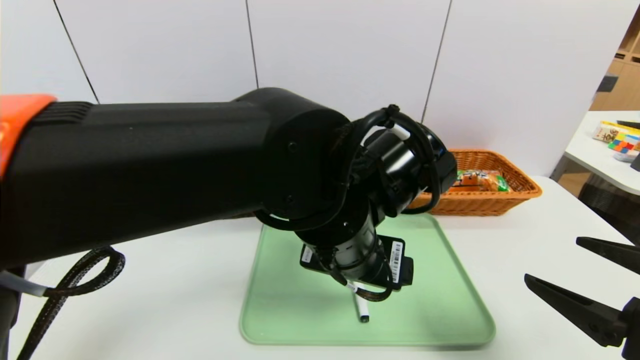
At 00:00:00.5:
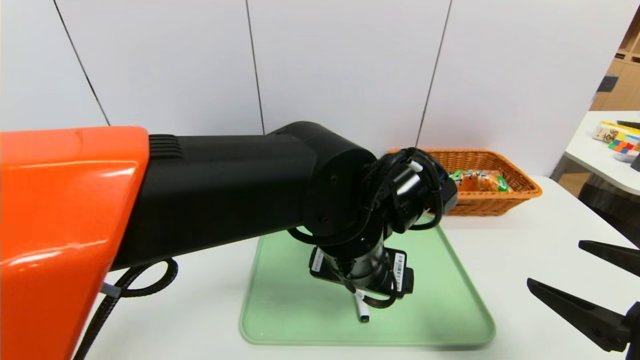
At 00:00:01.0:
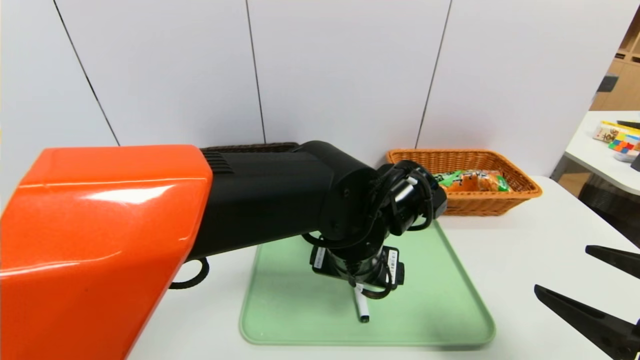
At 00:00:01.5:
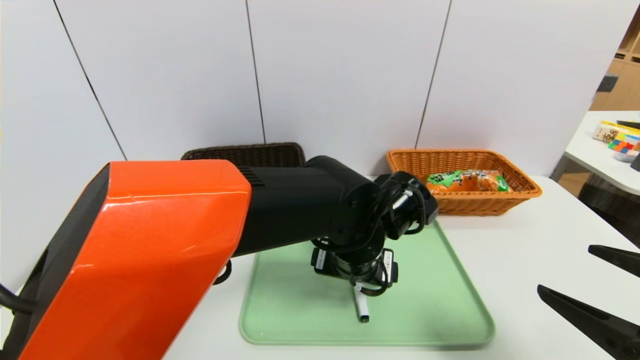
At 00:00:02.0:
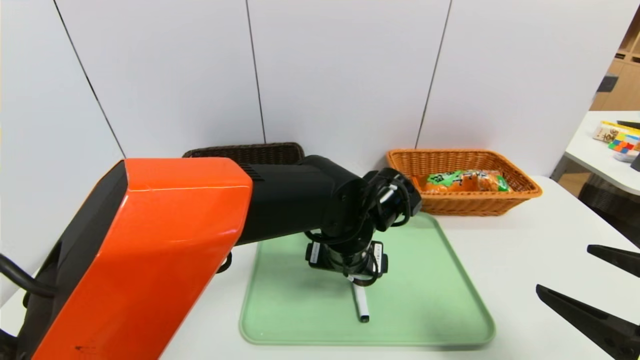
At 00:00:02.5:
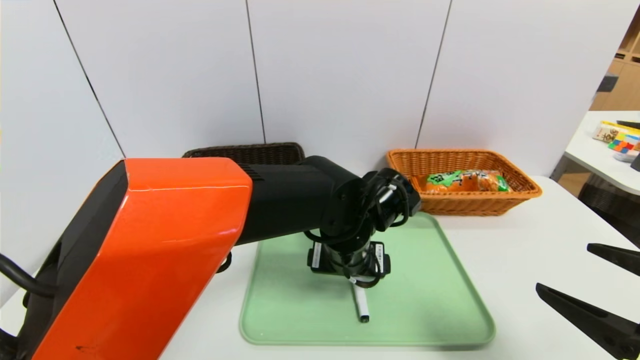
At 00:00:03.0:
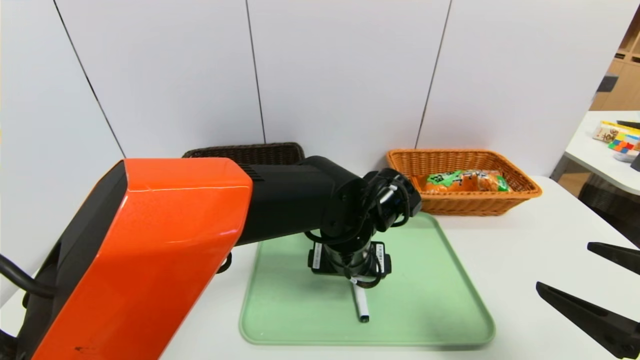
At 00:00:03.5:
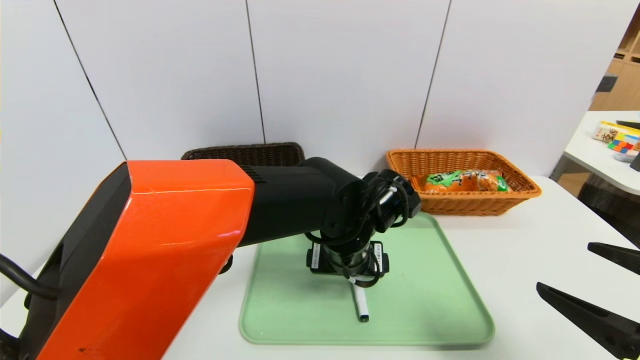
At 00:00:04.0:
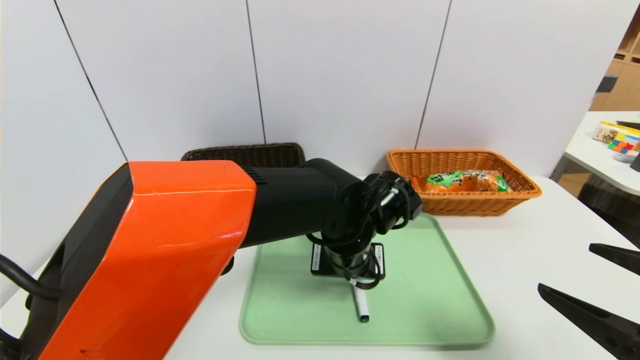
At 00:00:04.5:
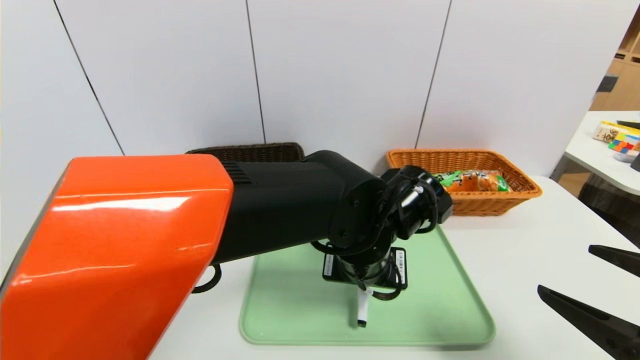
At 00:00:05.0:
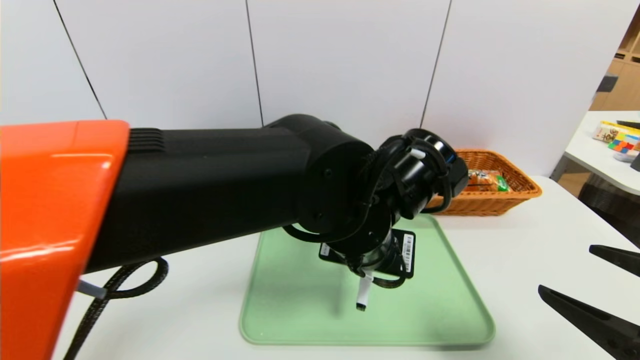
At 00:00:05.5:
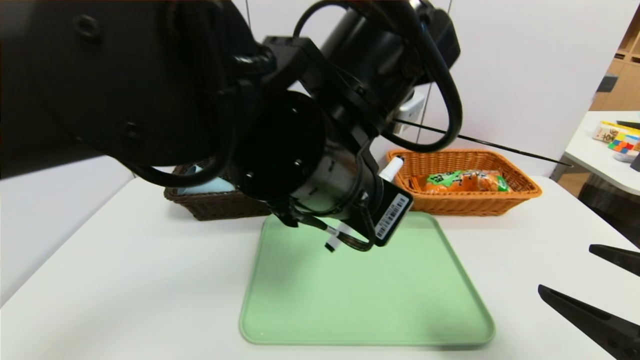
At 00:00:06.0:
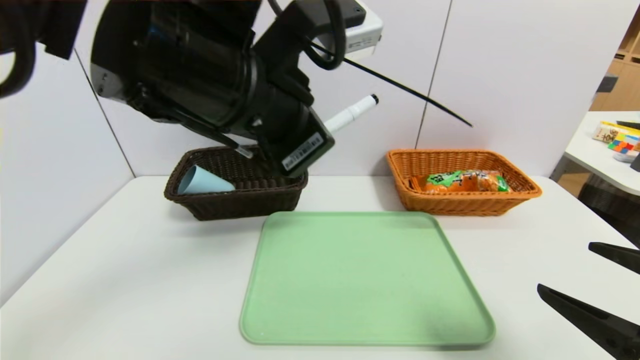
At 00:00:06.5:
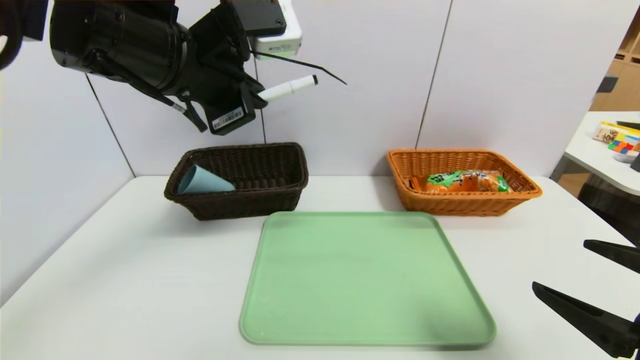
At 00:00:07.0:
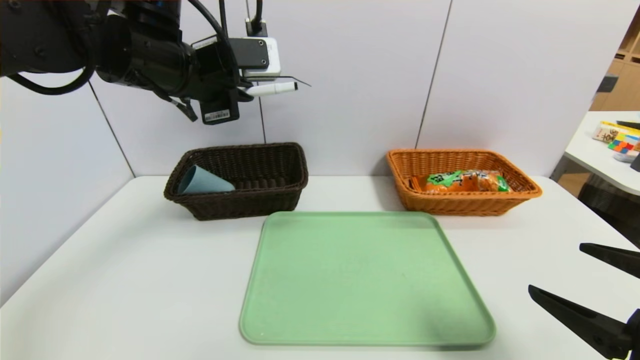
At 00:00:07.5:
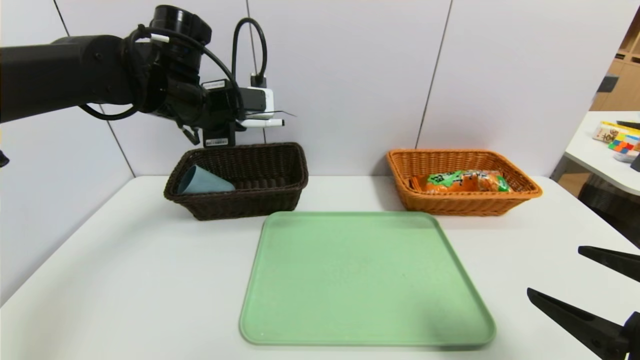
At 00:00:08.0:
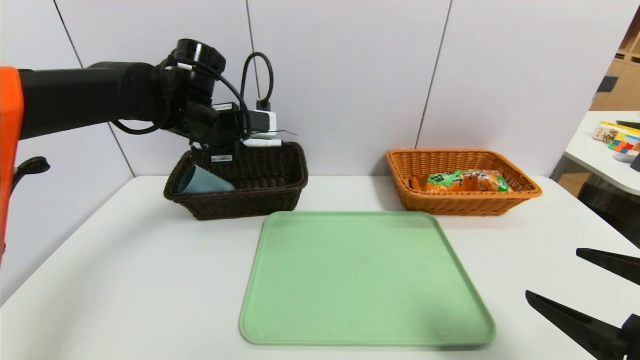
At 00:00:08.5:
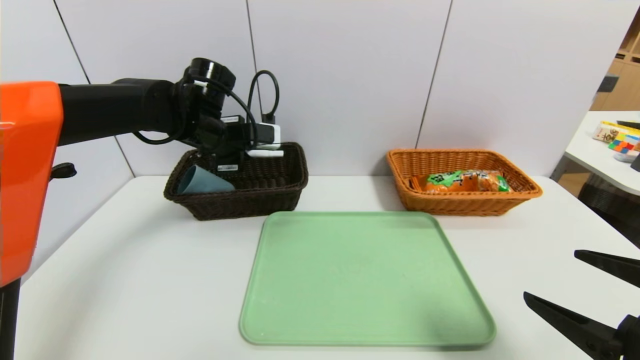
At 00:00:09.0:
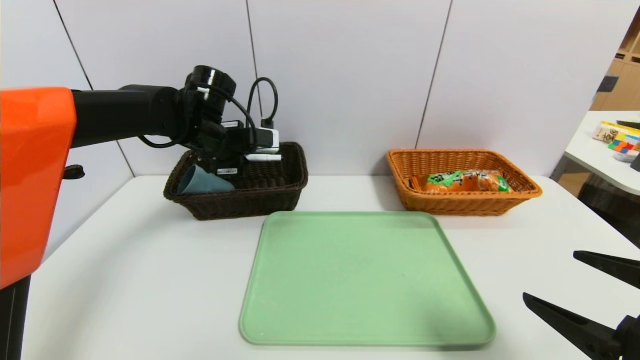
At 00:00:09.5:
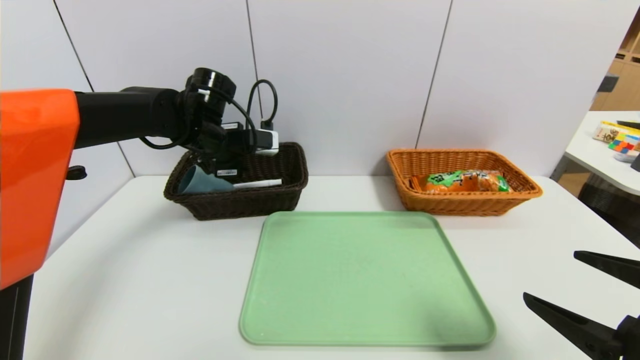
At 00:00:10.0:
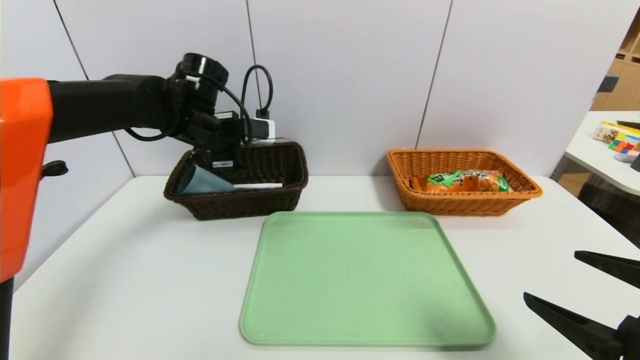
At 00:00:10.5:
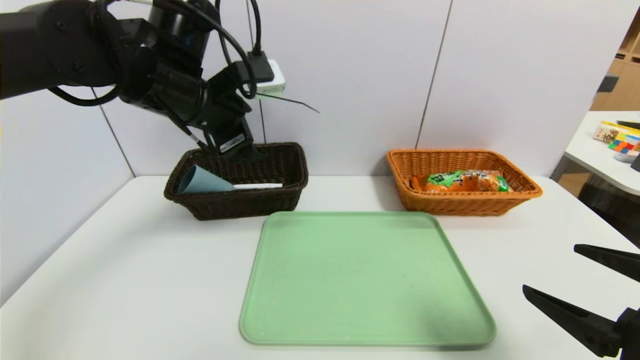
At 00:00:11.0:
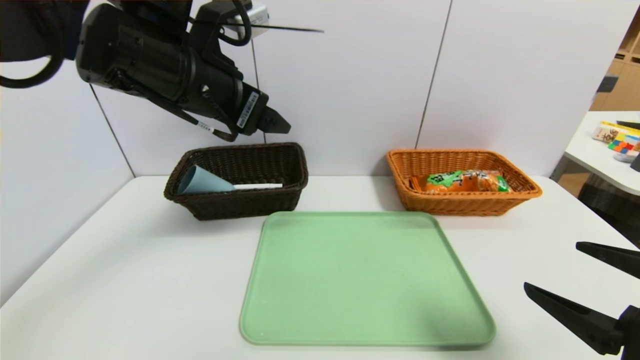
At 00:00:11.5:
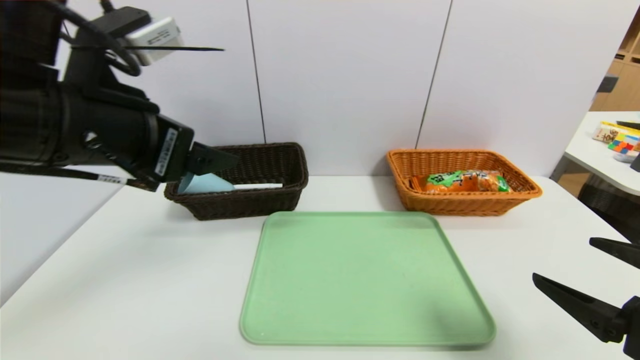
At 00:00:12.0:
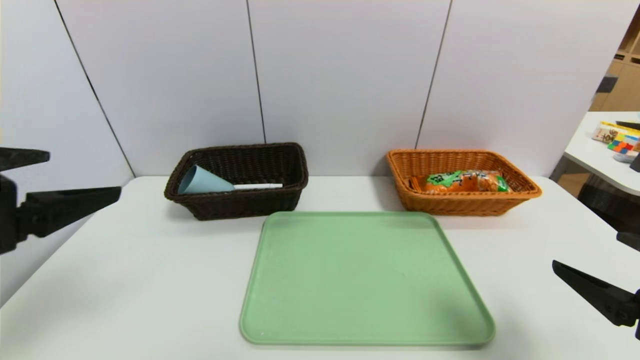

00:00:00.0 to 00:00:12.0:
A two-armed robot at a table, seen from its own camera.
Task of the whole recording: place the food in the right basket with the right gripper, and place the non food items in the left basket with the left gripper.
Step, 00:00:00.0 to 00:00:09.5: Grasp the black marker and put it in the left basket.
00:00:00.0 to 00:00:02.0: The left gripper moves downward and forward, some 10 cm.
00:00:02.0 to 00:00:04.0: The left gripper closes its fingers.
00:00:04.0 to 00:00:06.0: The left gripper goes some 25 cm upward and to the left, and closes.
00:00:06.0 to 00:00:08.0: The left gripper moves forward, to the left and downward, approximately 25 cm.
00:00:08.0 to 00:00:10.0: The left gripper opens its fingers.
00:00:10.0 to 00:00:12.0: The left gripper goes roughly 30 cm backward.

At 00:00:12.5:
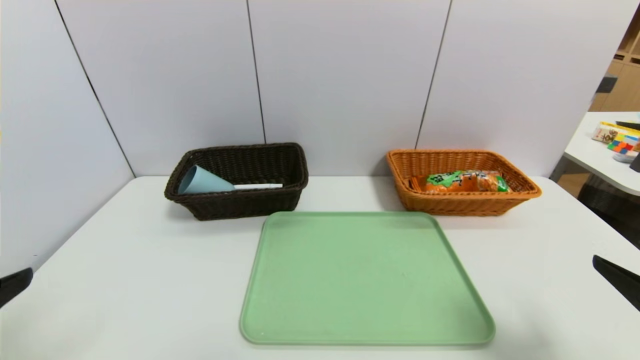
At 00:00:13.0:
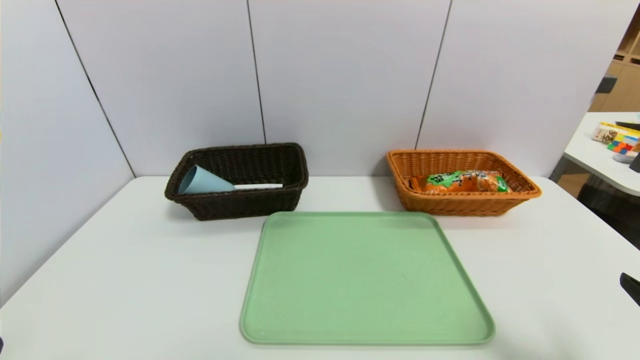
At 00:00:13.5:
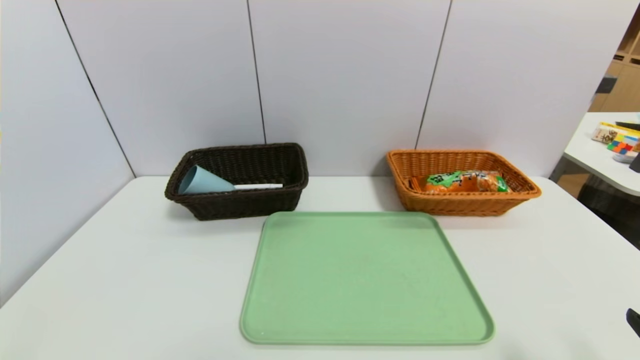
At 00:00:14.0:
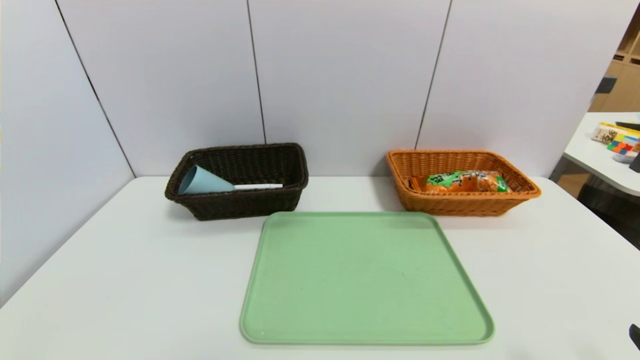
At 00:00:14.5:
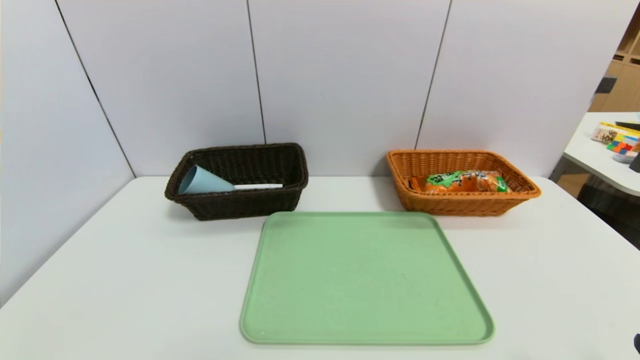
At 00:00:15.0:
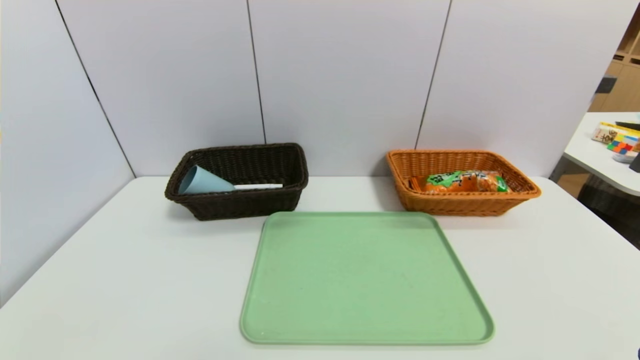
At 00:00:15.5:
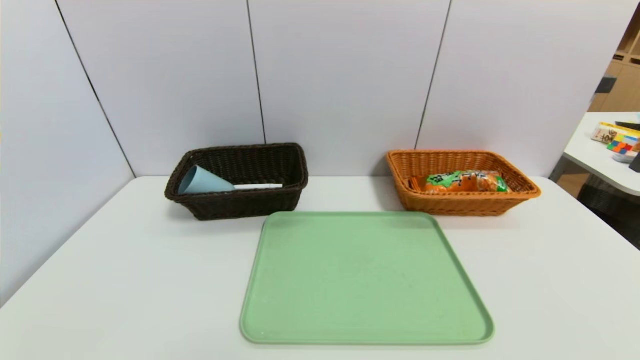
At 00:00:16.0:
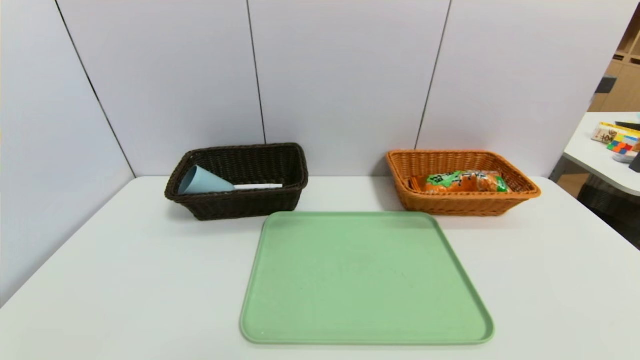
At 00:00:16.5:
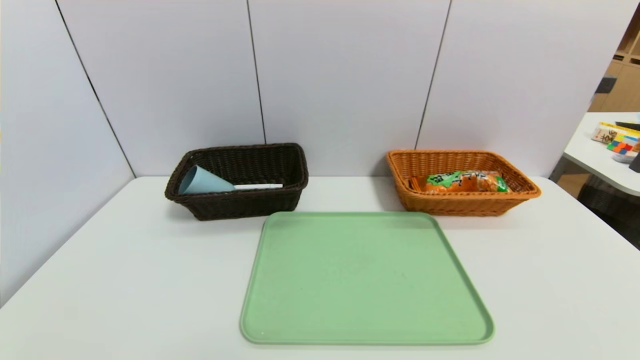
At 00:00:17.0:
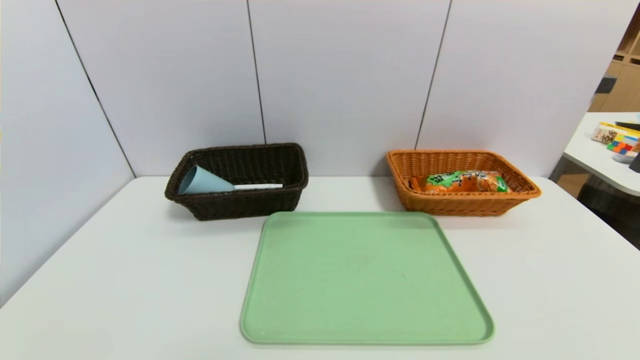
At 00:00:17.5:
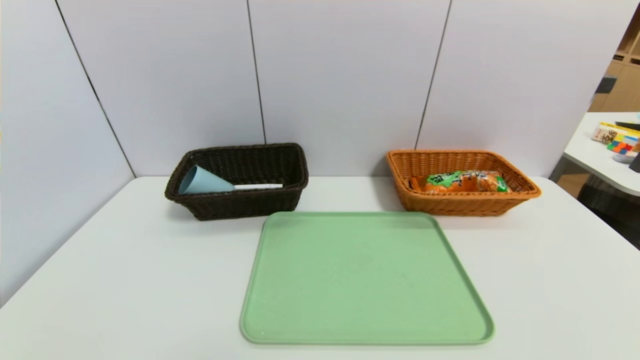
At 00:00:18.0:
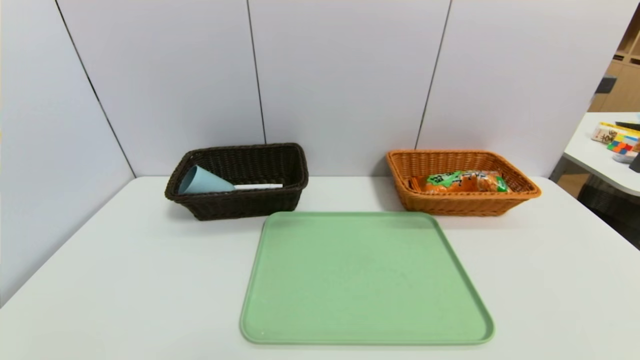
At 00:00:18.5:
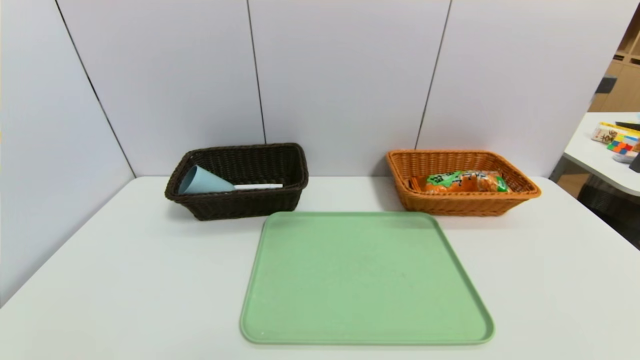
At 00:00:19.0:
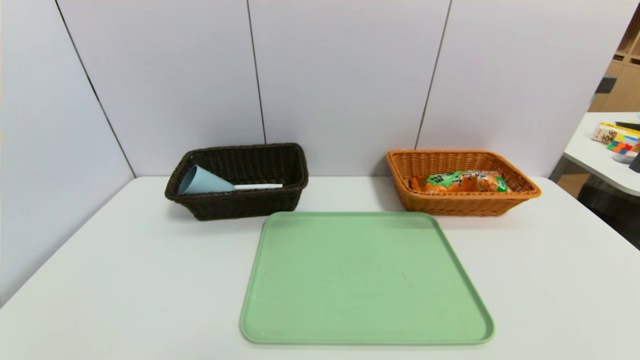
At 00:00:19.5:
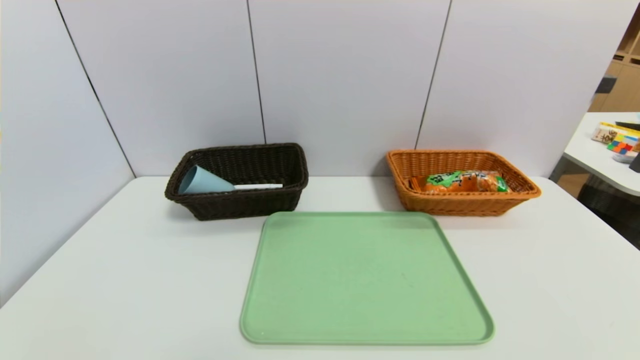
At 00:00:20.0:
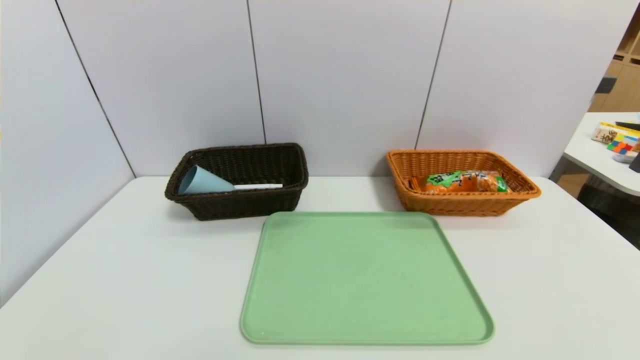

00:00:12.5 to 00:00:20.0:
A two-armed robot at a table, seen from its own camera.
Task of the whole recording: place the food in the right basket with the right gripper, and place the non food items in the left basket with the left gripper.
00:00:12.5 to 00:00:14.5: The two grippers go roughly 10 cm downward and backward.
